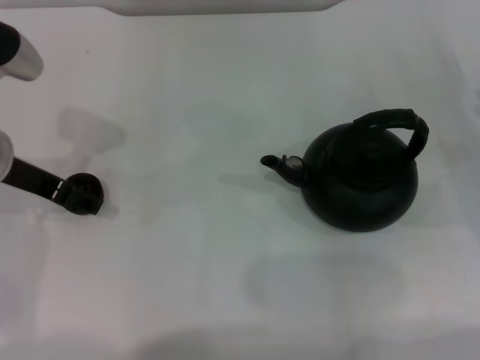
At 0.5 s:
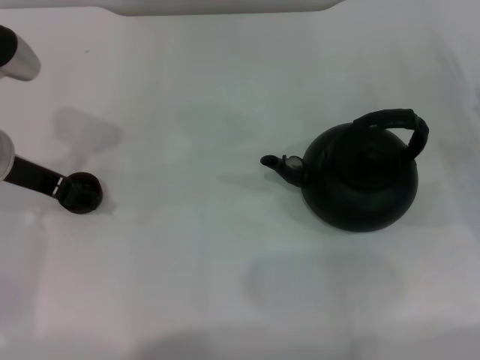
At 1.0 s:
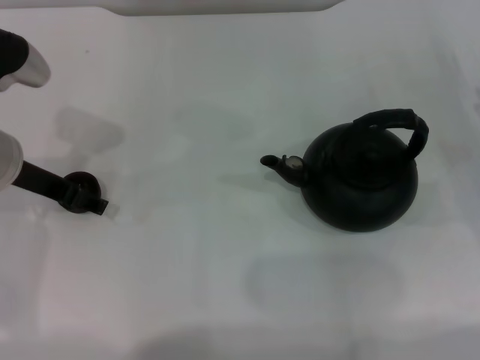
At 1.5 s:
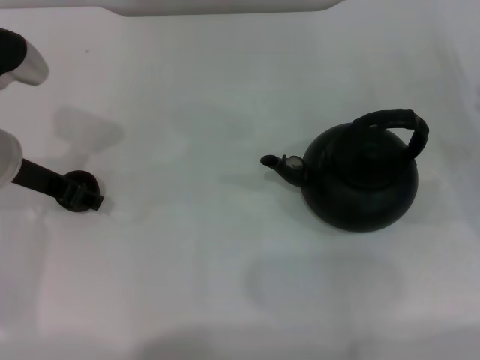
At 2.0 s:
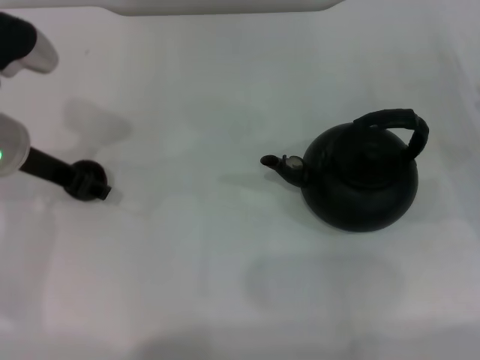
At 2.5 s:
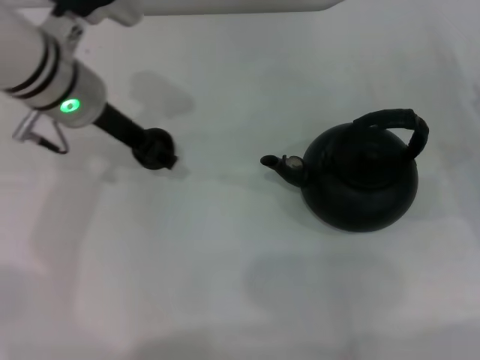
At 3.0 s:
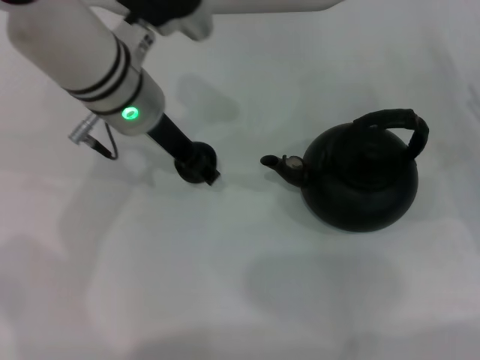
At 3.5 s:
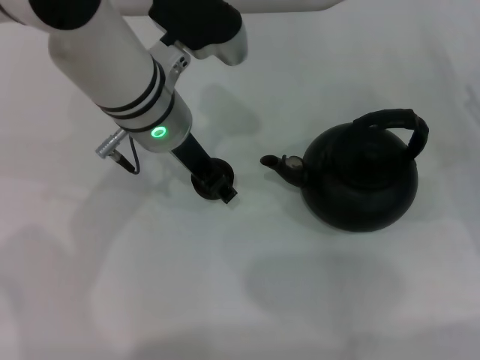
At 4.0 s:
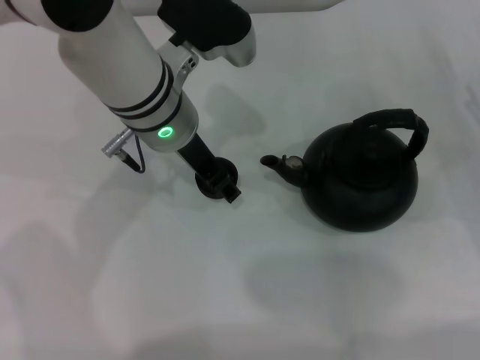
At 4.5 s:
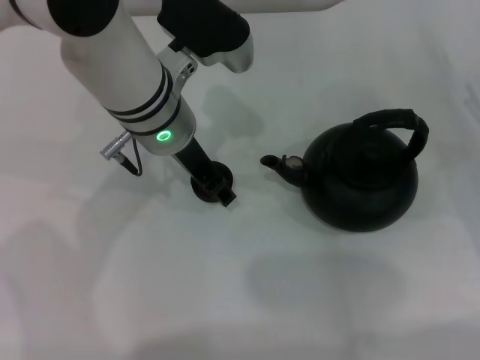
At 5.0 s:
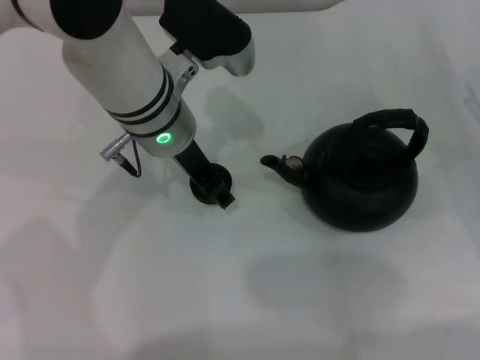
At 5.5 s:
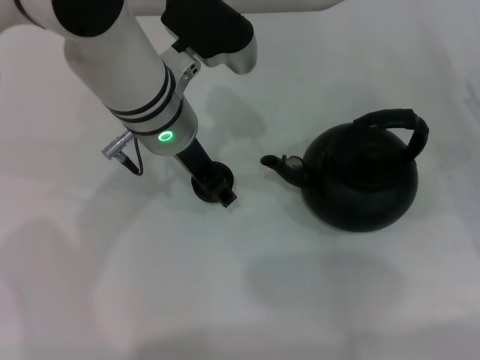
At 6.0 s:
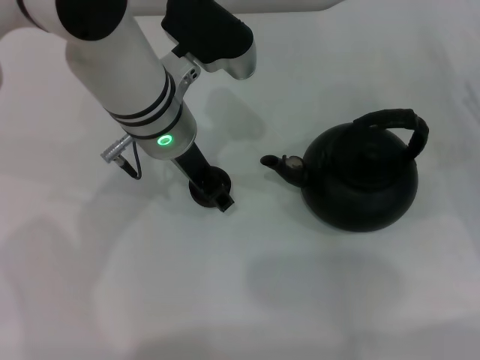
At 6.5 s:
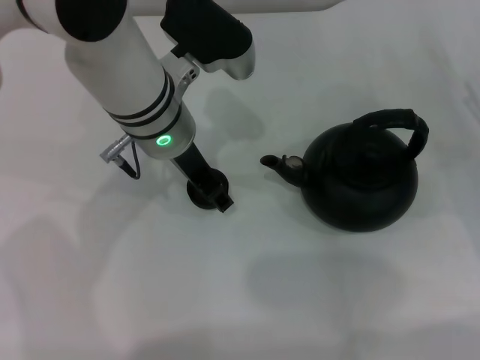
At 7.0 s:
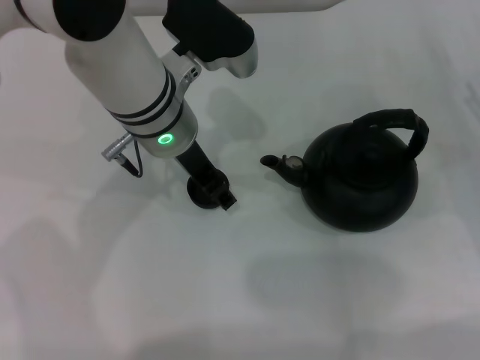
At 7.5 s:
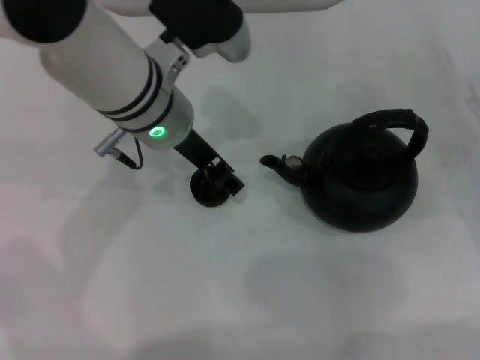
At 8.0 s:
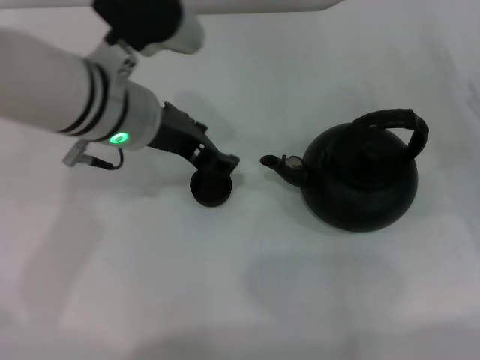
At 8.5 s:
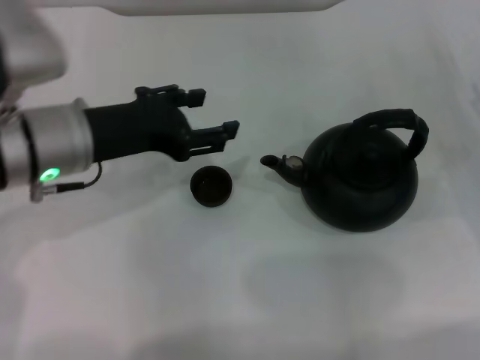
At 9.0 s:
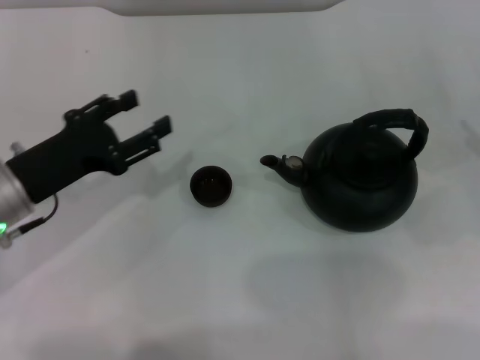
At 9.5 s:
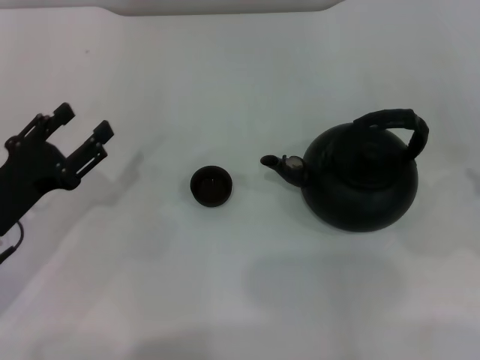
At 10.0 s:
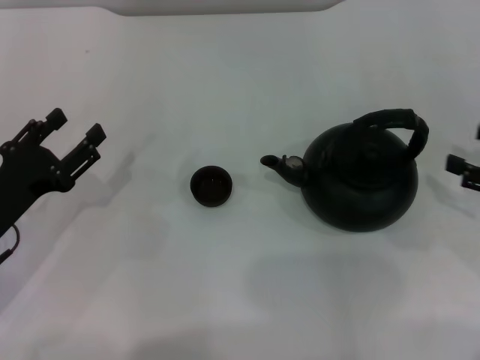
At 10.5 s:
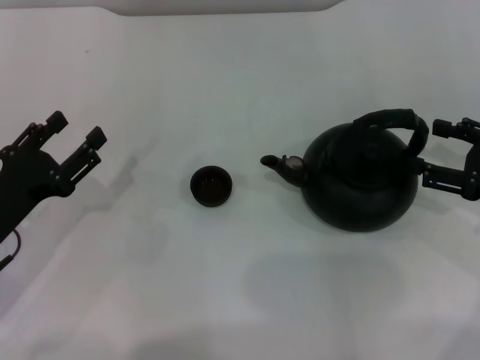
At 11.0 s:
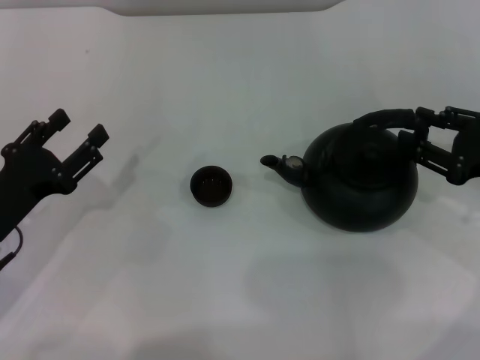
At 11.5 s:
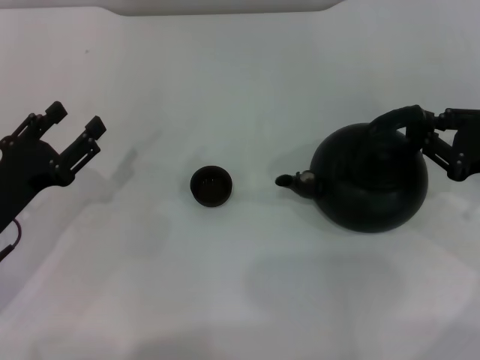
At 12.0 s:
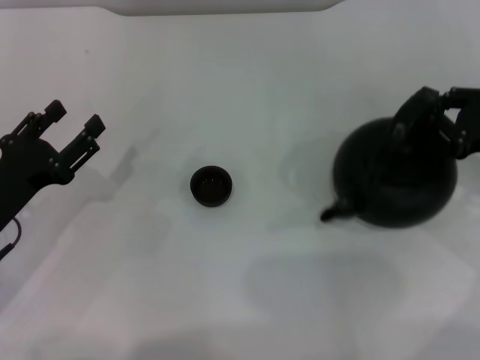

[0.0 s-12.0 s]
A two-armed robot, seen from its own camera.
Task of the whole recording: Grasp the handle of the teapot with one hand and pour tea into the teacup.
Step, 2.0 to 8.0 s: Place the teacup in the center of view with the left gripper.
0.0 to 2.0 s: The left gripper closes up.
2.0 to 4.0 s: The left gripper travels to the right by roughly 15 cm.
4.0 to 6.0 s: Neither gripper changes place.
6.0 to 8.0 s: The left gripper moves some 5 cm.
8.0 to 10.0 s: The left gripper travels to the left, downward and backward by roughly 25 cm, while the right gripper changes place by approximately 5 cm.
10.0 to 12.0 s: The right gripper ends up roughly 5 cm from where it was, and closes.

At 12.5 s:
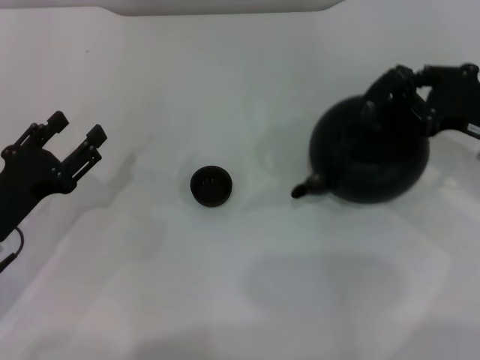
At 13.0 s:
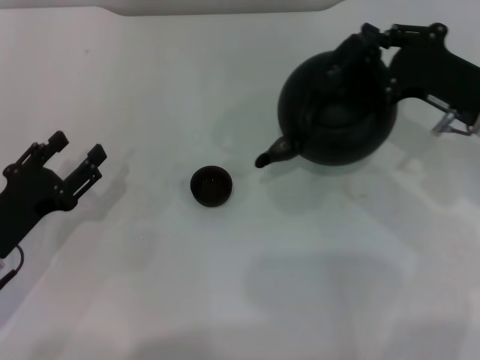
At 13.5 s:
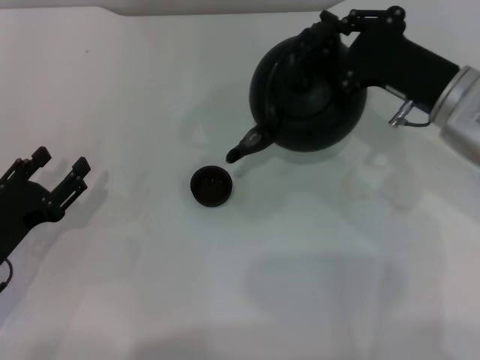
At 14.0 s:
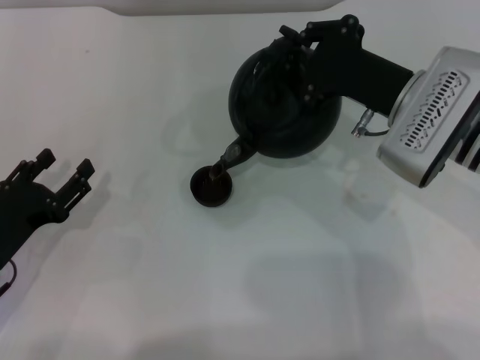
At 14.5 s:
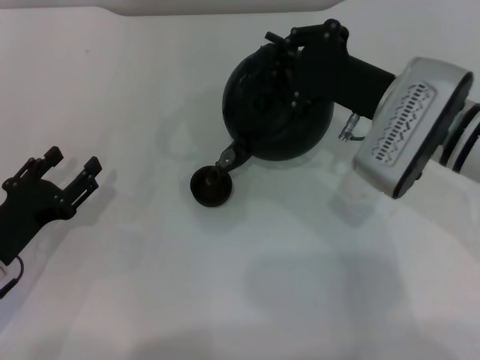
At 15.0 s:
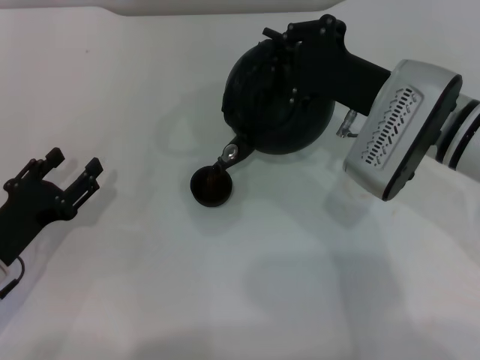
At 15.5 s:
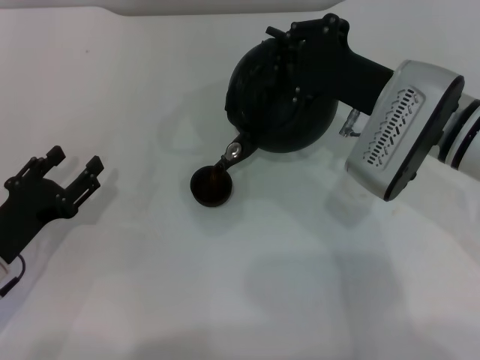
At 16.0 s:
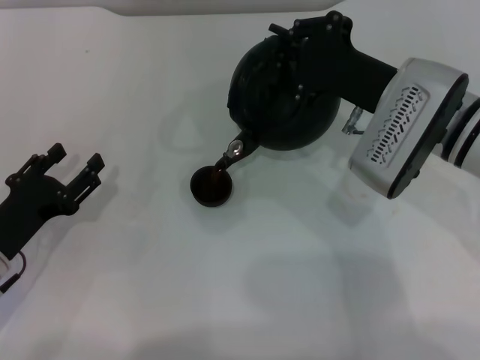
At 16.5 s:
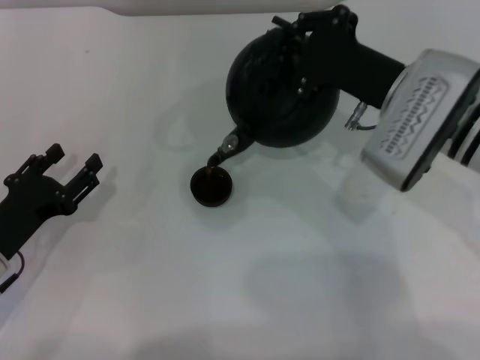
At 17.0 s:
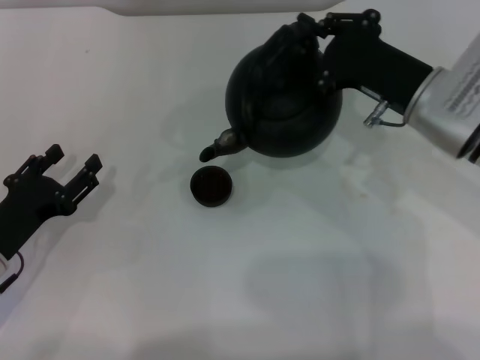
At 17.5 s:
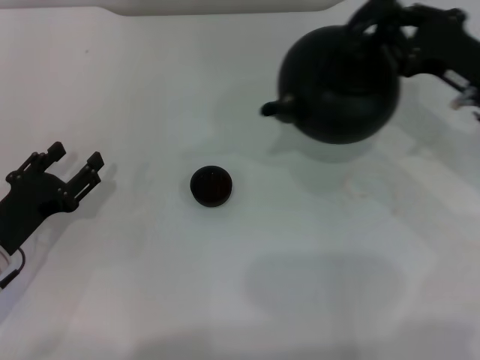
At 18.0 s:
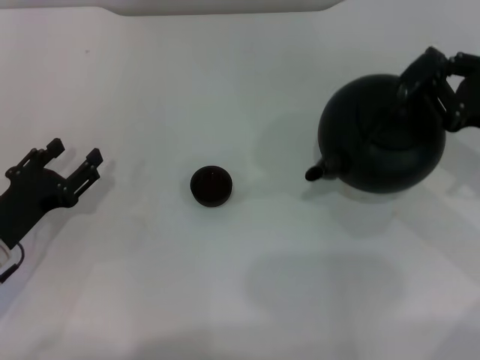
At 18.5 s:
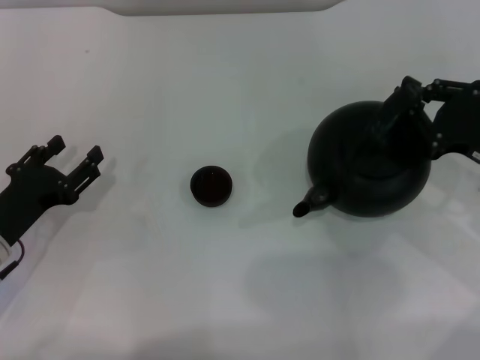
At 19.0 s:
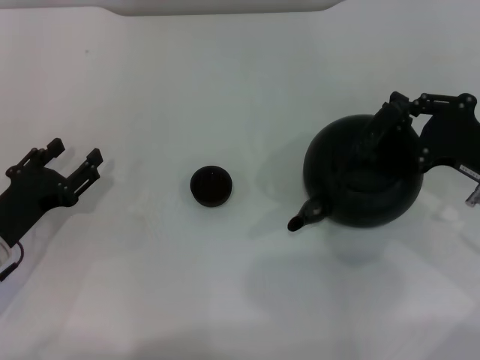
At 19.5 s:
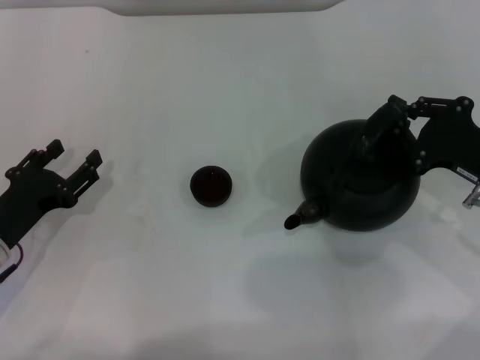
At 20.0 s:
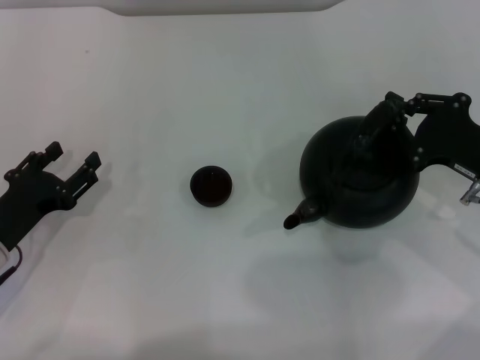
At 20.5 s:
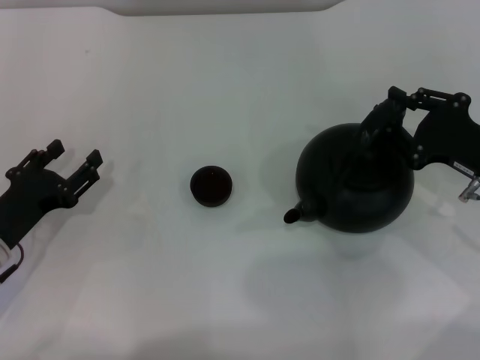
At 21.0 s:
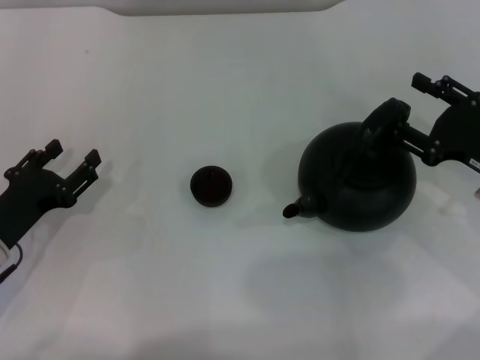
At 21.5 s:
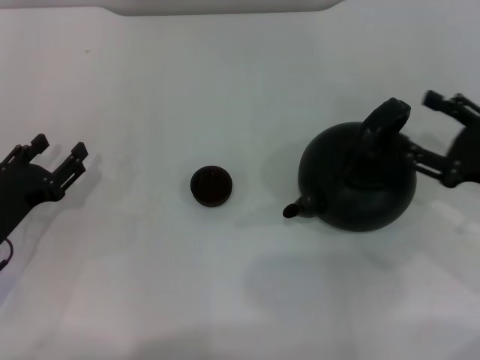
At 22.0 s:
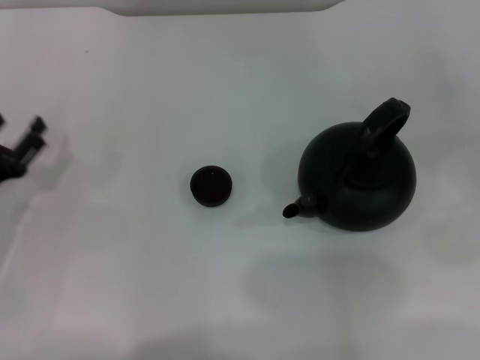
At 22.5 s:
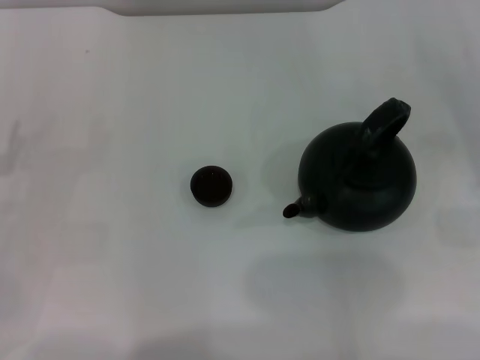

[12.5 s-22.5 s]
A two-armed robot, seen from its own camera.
Task of the whole recording: Grasp the handle of the teapot with one hand and pour tea into the teacup.
Step, 13.5 to 17.0 s: Pour tea into the teacup with the right gripper.
Step, 17.5 to 21.5 s: Put down the teapot with the right gripper.
12.5 to 14.5 s: The right gripper moves to the left, roughly 15 cm.
14.5 to 16.5 s: Both grippers stay put.
16.5 to 18.5 s: The right gripper is displaced to the right and backward by approximately 15 cm.
18.5 to 20.5 s: The grippers make only small movements.
20.5 to 22.5 s: The right gripper heads to the right, covering about 10 cm, and opens its fingers. The left gripper is displaced to the left by roughly 5 cm.

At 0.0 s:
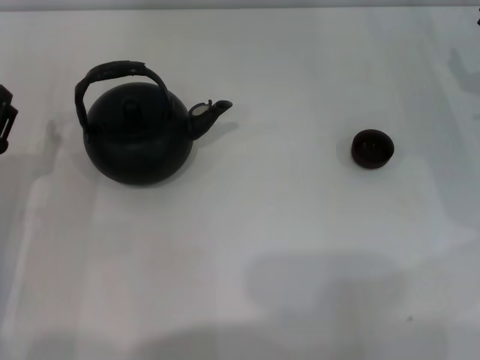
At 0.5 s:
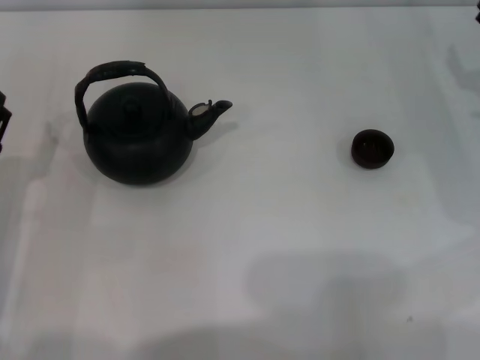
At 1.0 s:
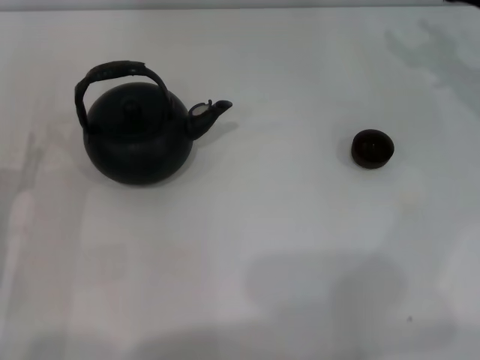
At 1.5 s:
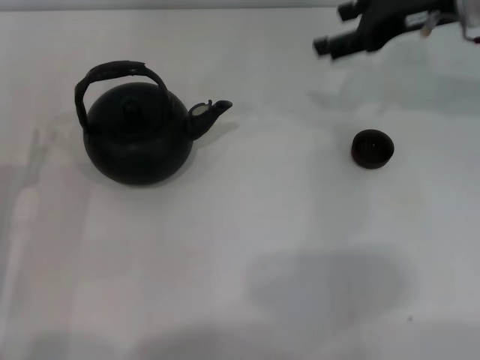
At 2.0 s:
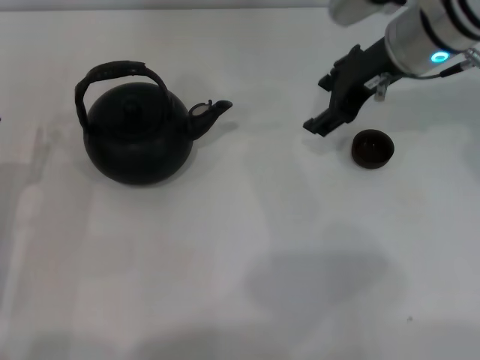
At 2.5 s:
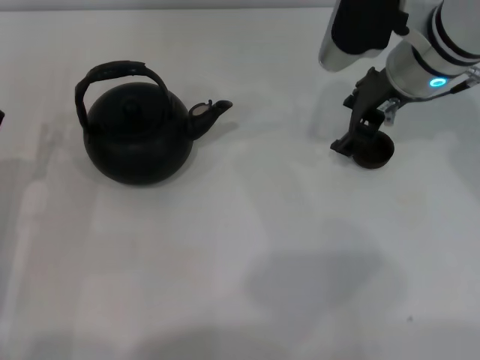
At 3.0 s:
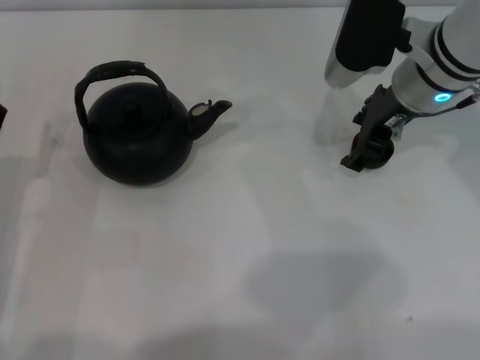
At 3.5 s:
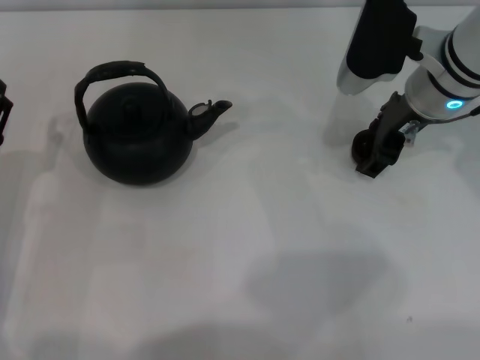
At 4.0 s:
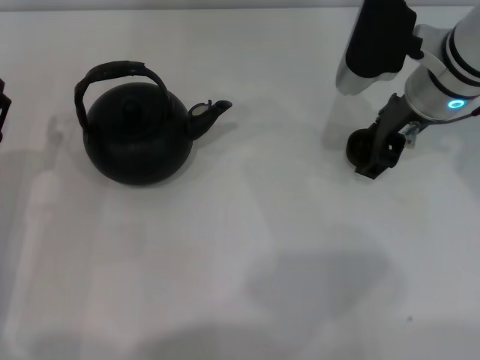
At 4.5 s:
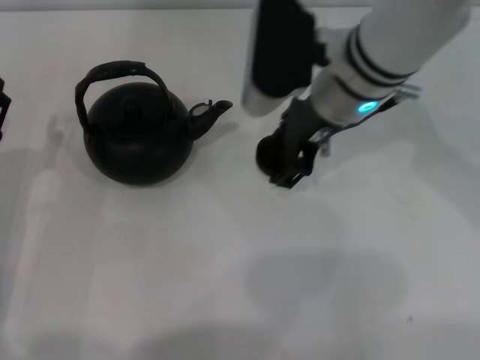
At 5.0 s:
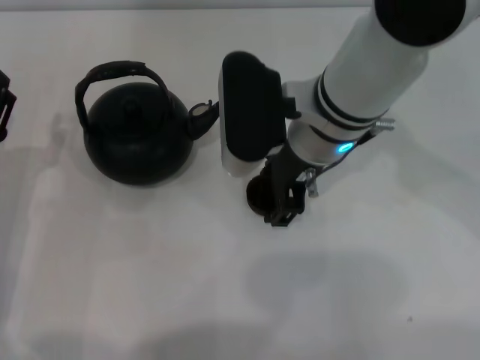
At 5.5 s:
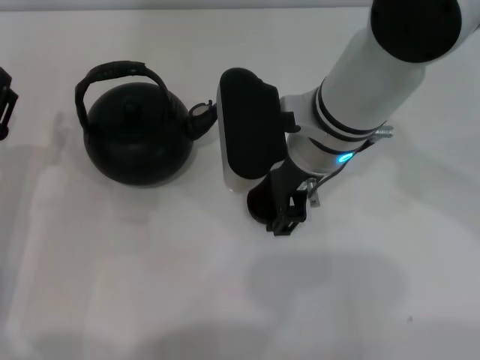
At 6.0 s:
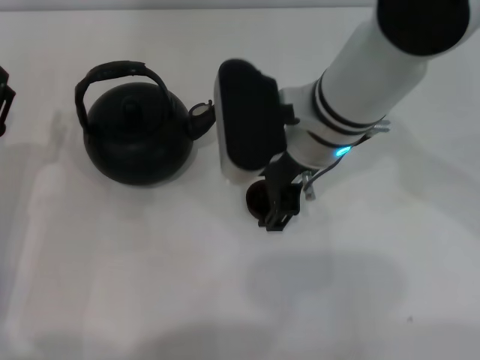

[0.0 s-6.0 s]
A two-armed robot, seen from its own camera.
Task of the whole recording: Grasp the handle of the teapot with one hand and pour tea into the teacup.
Step, 0.0 to 4.0 s: Pick up the teacup with the right gripper.
0.0 to 2.0 s: The right gripper goes some 20 cm to the left and upward.
2.0 to 4.0 s: The grippers stay close to where they were, moving slightly.
4.0 to 6.0 s: The right gripper is displaced to the left by about 10 cm.
